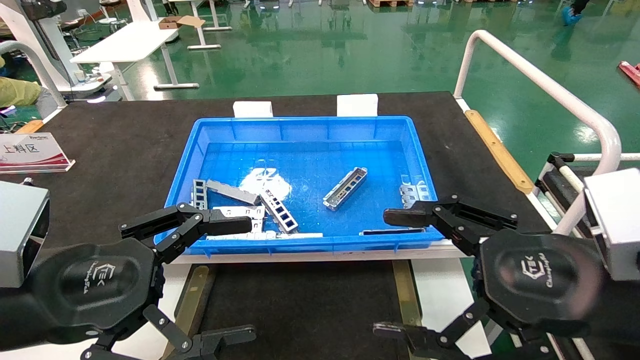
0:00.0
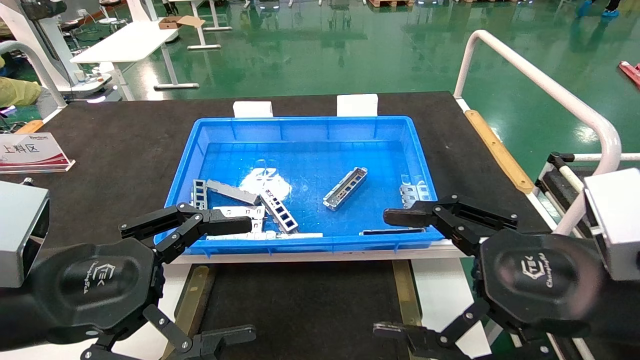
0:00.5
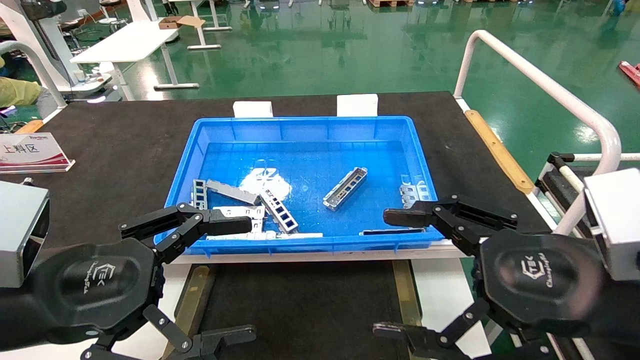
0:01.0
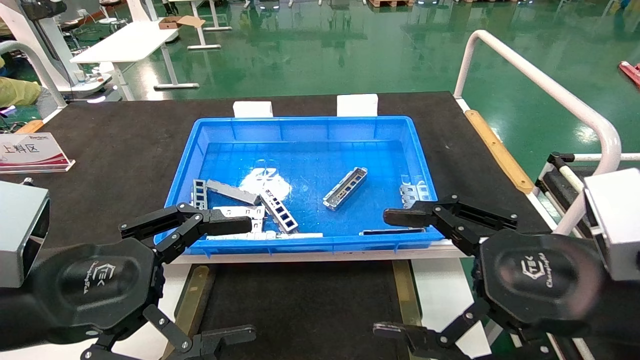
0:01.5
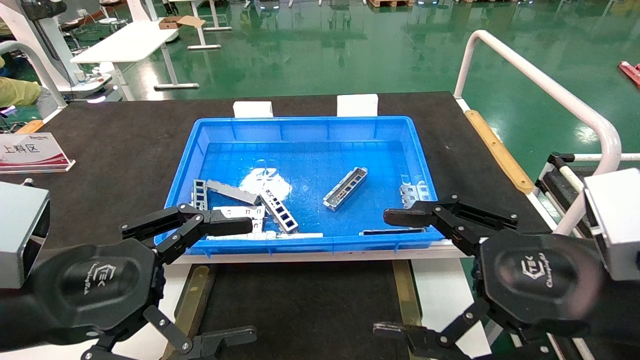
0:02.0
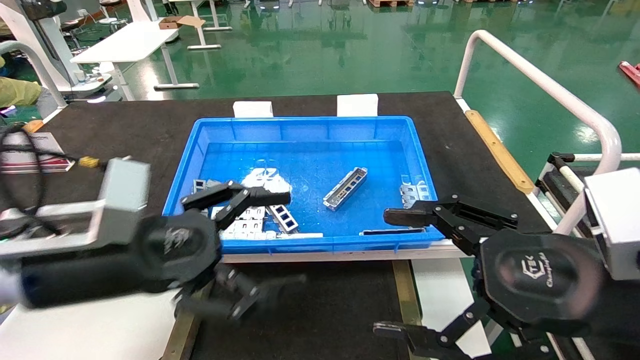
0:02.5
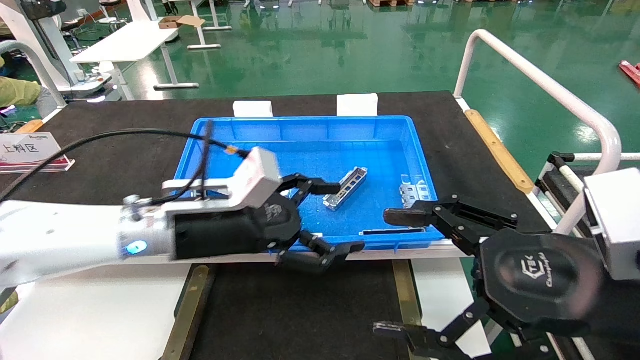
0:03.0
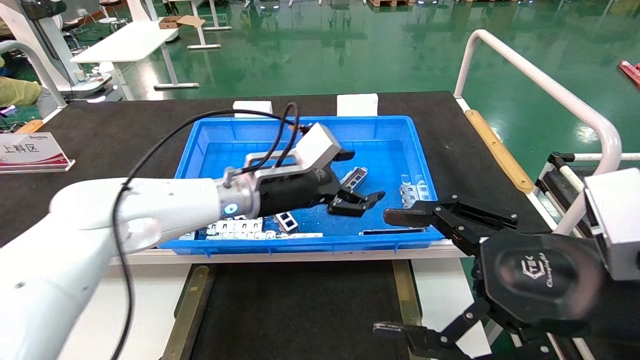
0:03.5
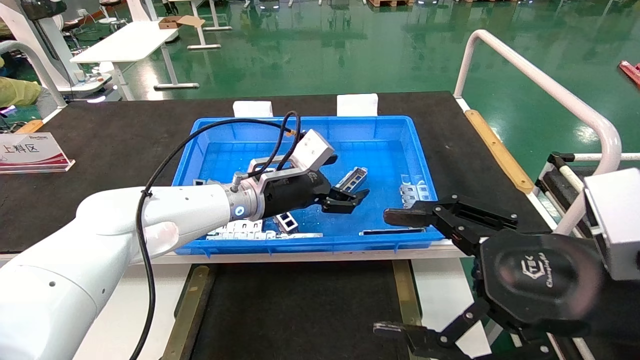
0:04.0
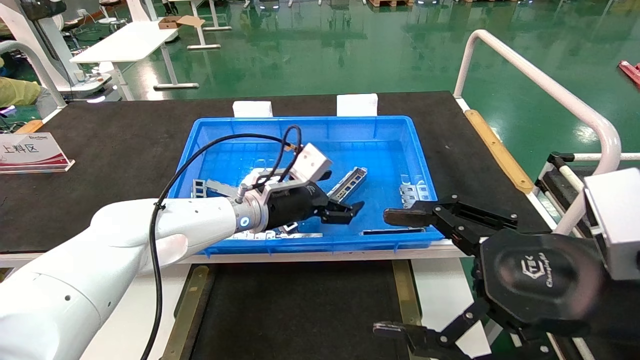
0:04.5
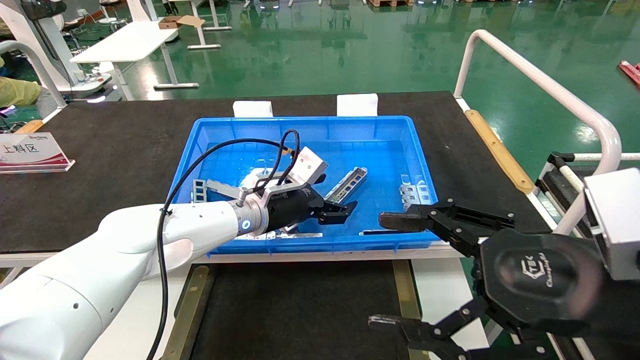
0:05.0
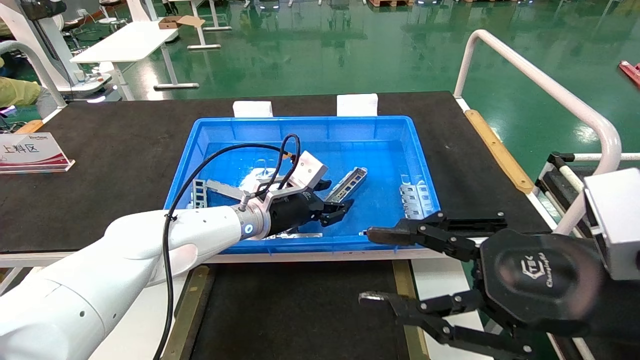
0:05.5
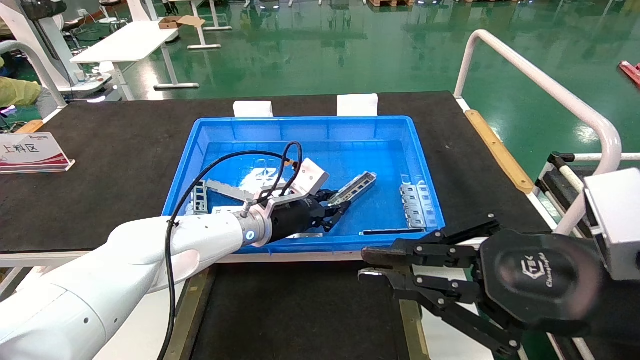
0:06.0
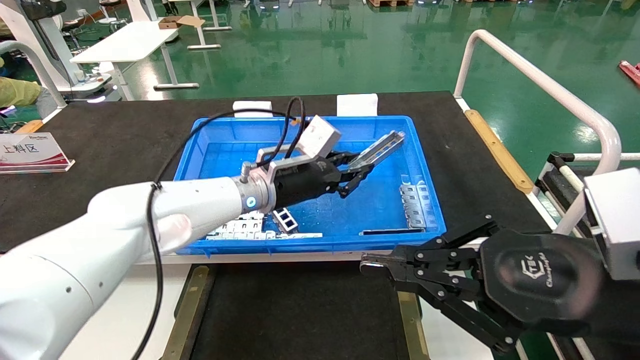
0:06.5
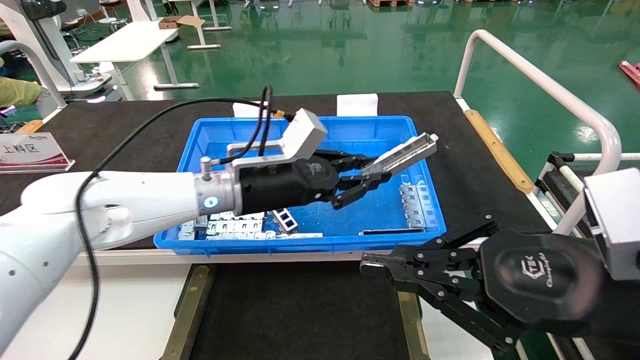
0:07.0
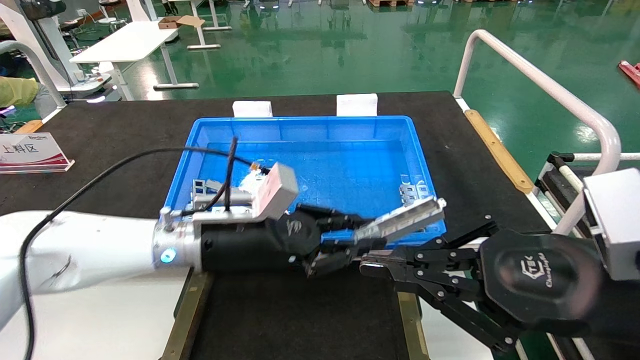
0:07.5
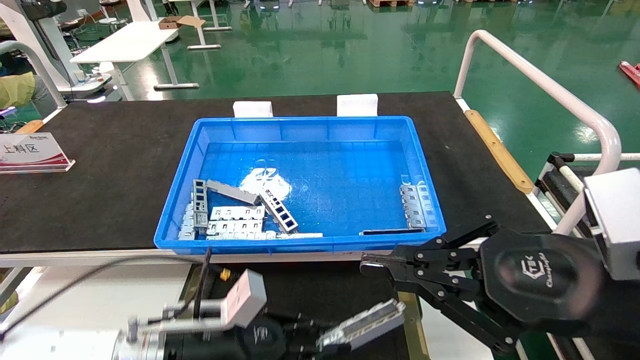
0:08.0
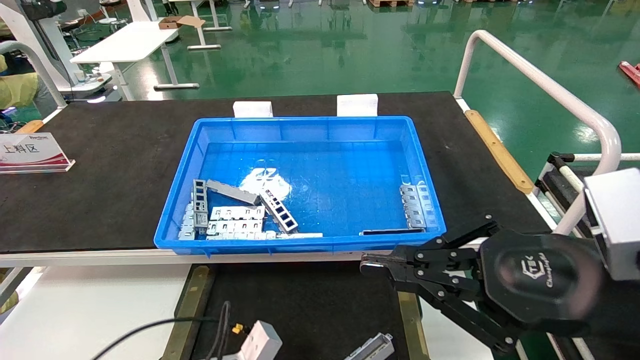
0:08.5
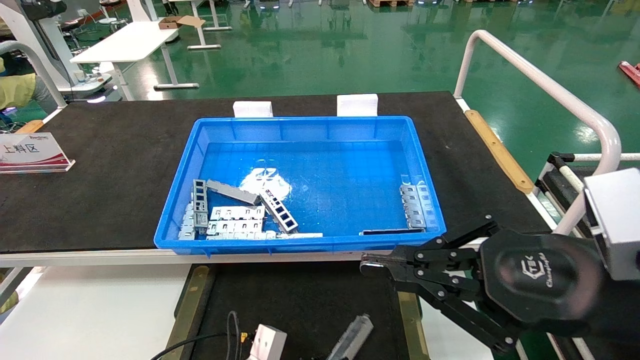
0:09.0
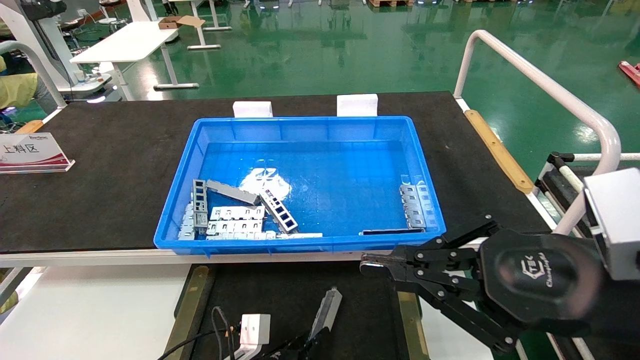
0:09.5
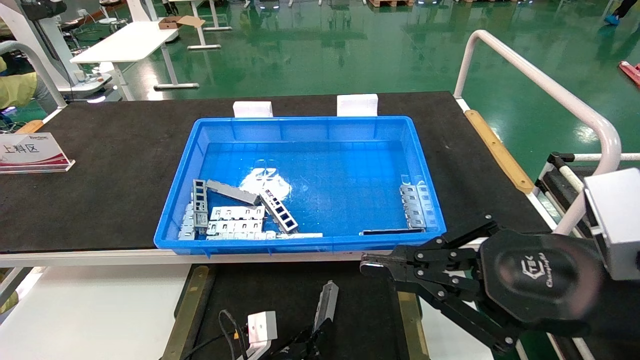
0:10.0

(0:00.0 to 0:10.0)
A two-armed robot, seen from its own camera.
Task of the whole recording: Grasp the part with one hand and place it on the black container.
Step, 0:02.0 - 0:06.0: Pick up the front USB bracket from the feeding area.
0:00.0 - 0:02.0: The two grippers keep their place.
0:02.0 - 0:04.0: The left gripper travels forward and to the right by some 30 cm.
0:04.0 - 0:06.0: The right gripper closes up; the left gripper closes its fingers.
0:06.0 - 0:08.0: The left gripper moves backward, downward and to the left, about 20 cm.
0:08.0 - 0:10.0: The left gripper travels downward and to the right by roughly 15 cm.

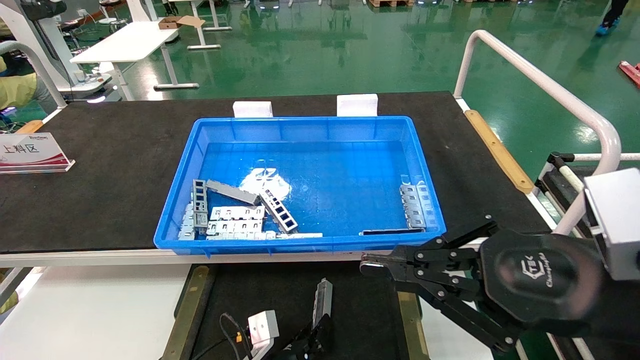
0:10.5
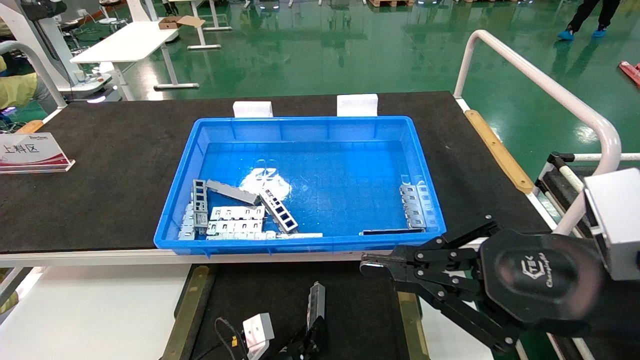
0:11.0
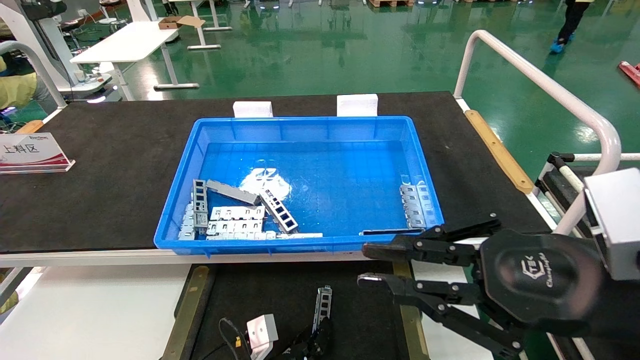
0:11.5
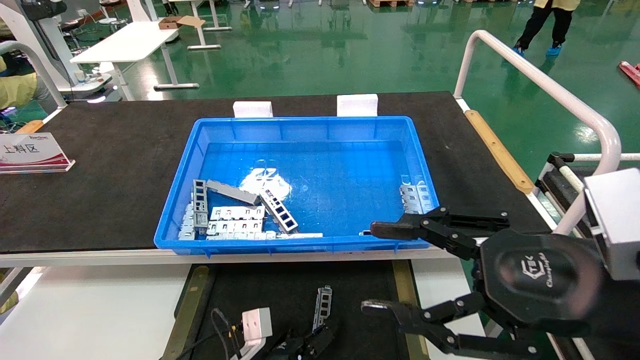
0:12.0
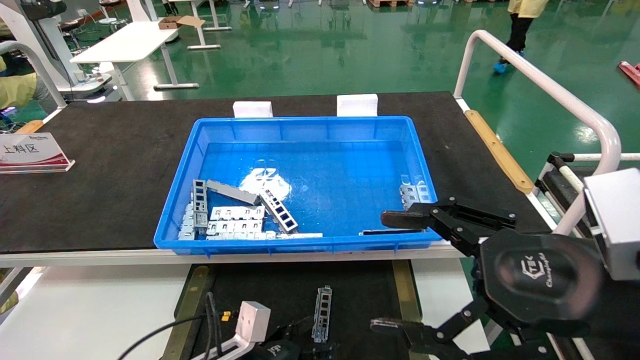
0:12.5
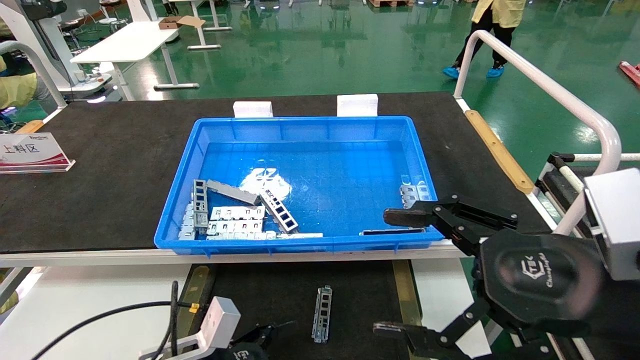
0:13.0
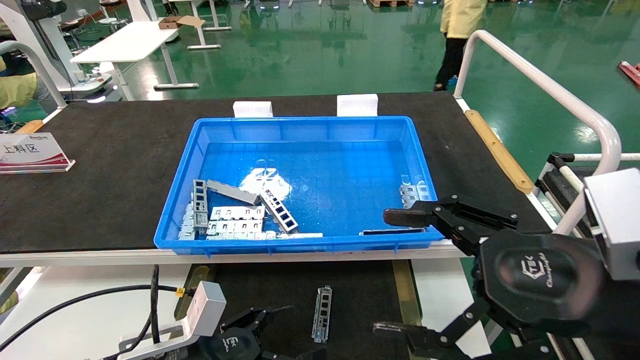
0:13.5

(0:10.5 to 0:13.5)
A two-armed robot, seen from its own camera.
Task of the whole recording: Grasp the part with one hand and place it on the black container.
0:10.5 - 0:12.0: The left gripper opens up, while the right gripper opens up.
0:12.0 - 0:13.5: The left gripper goes roughly 15 cm upward, to the left and backward, and opens up. The right gripper opens up.

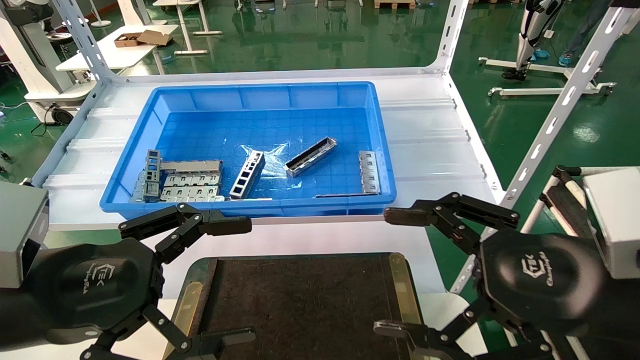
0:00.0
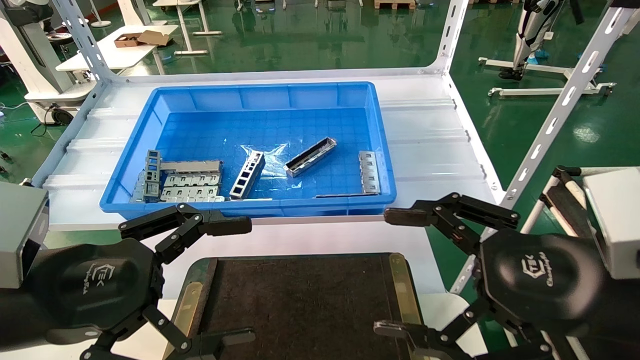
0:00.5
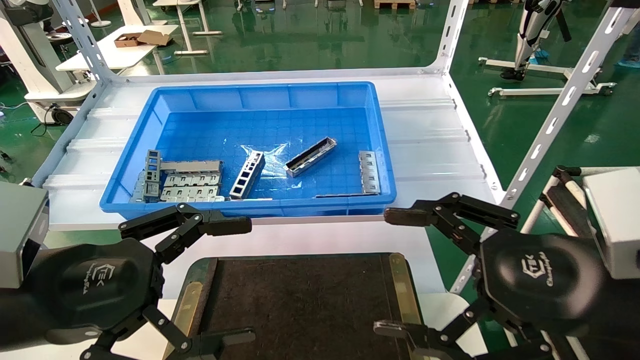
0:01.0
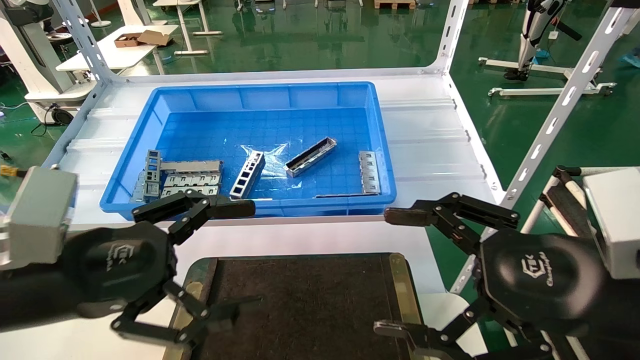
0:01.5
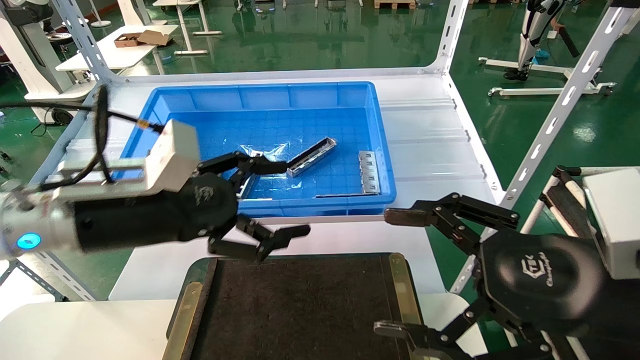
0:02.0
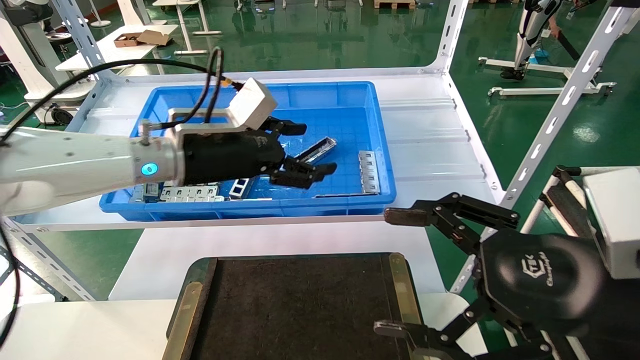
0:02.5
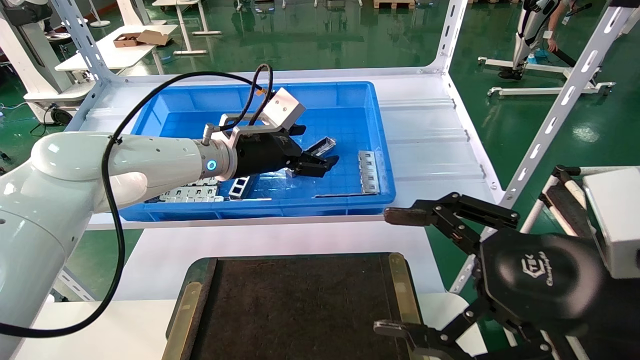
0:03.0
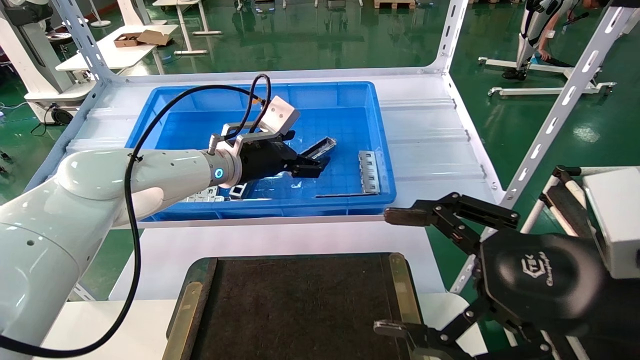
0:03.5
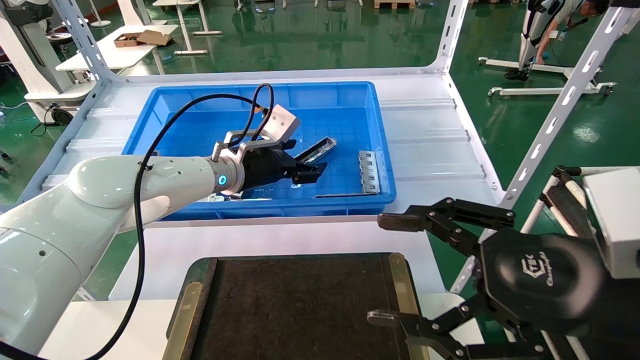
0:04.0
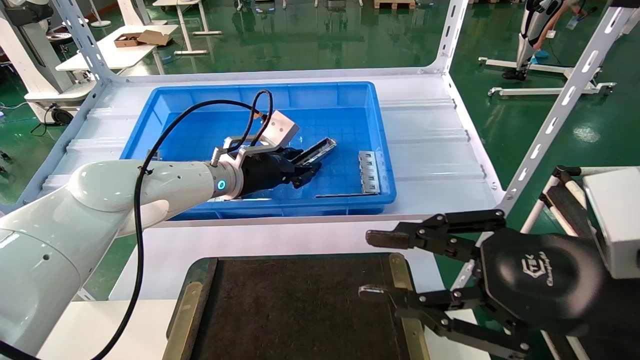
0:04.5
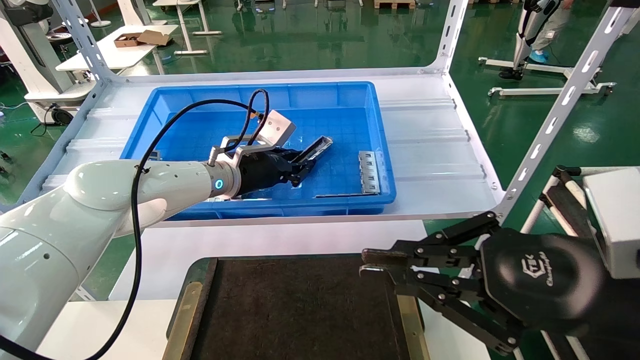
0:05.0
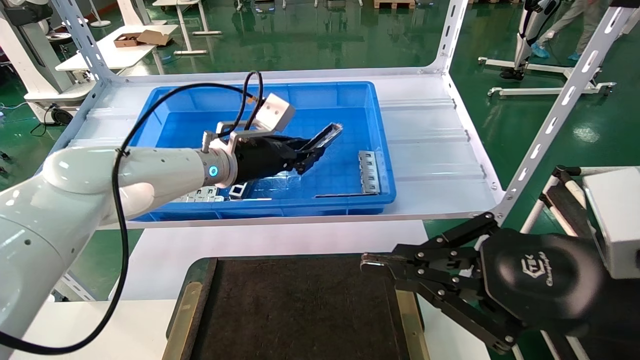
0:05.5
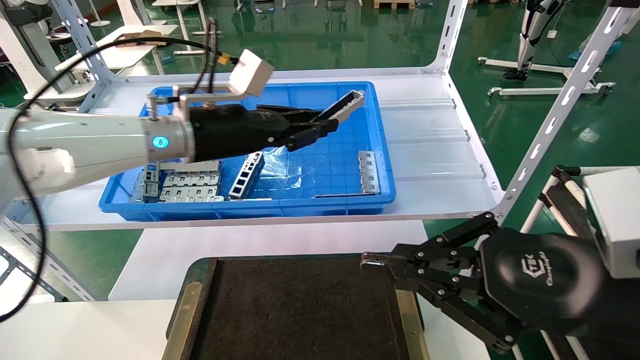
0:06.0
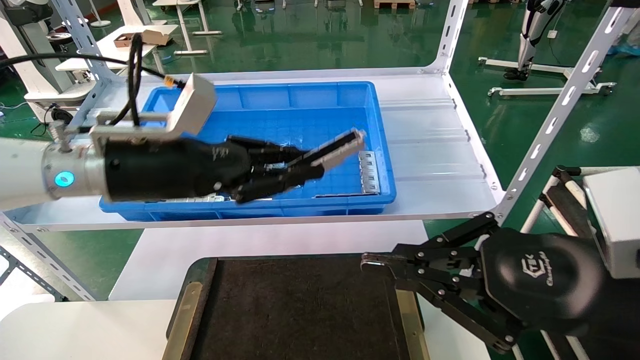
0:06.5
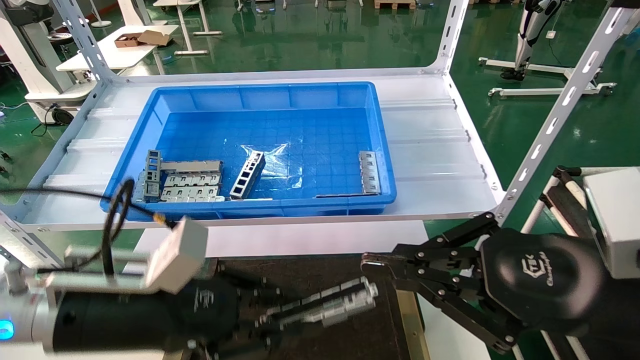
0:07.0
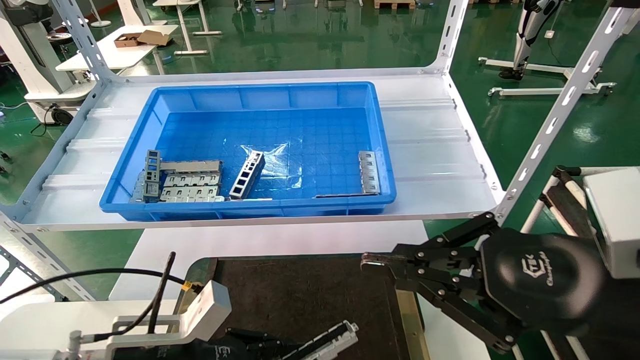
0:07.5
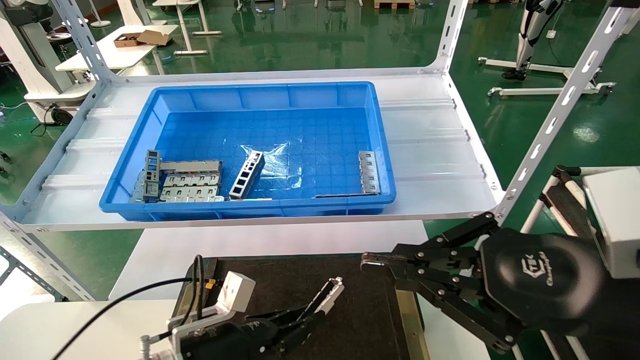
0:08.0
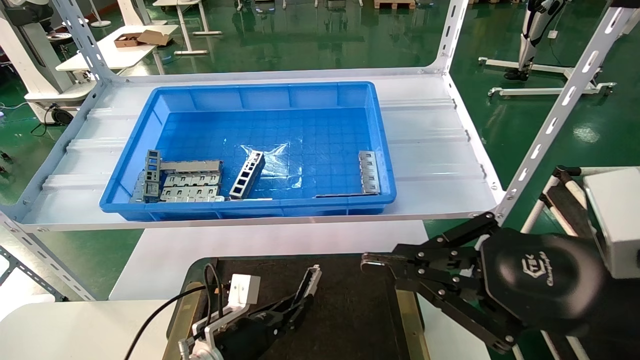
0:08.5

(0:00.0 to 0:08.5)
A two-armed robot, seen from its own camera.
Task of the whole recording: Grasp the part with one hand and place it on the black container.
Step, 0:01.5 - 0:05.5: Pick up the front USB bracket from the feeding area.
0:00.0 - 0:02.0: The left gripper travels forward by about 10 cm.
0:02.0 - 0:04.0: The left gripper shifts about 20 cm forward and to the right.
0:04.0 - 0:06.5: The left gripper heads backward and to the left, covering about 20 cm, and closes, while the right gripper closes up.
0:06.5 - 0:08.5: The left gripper is displaced downward by approximately 30 cm.
